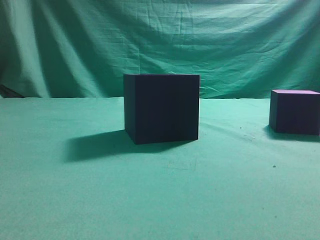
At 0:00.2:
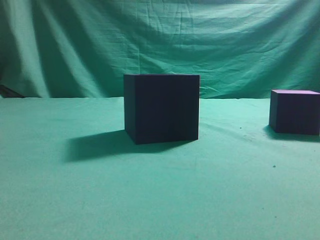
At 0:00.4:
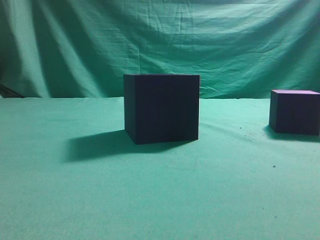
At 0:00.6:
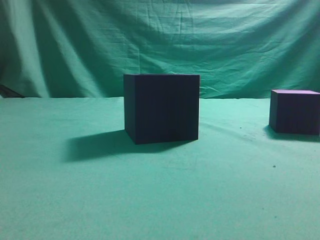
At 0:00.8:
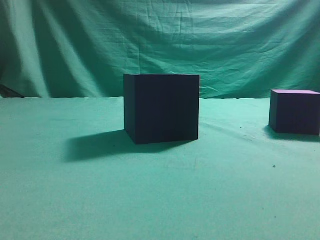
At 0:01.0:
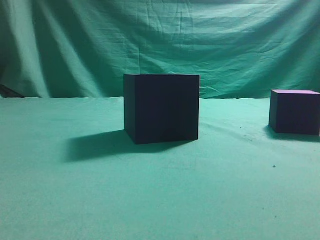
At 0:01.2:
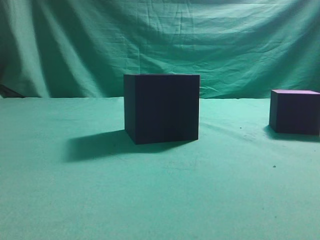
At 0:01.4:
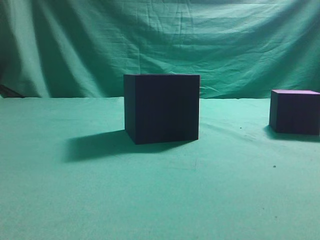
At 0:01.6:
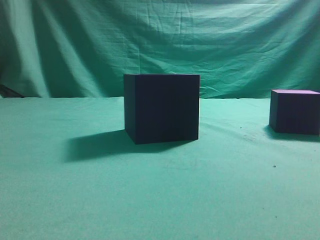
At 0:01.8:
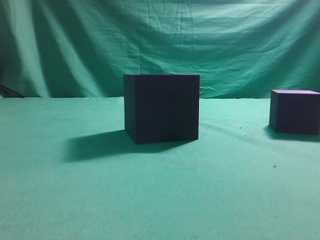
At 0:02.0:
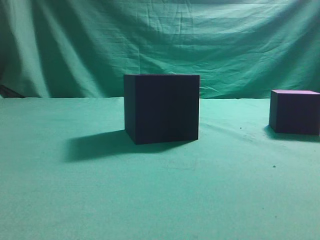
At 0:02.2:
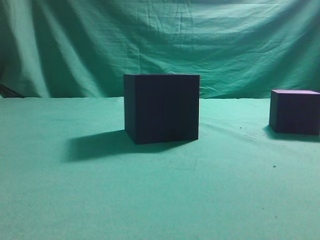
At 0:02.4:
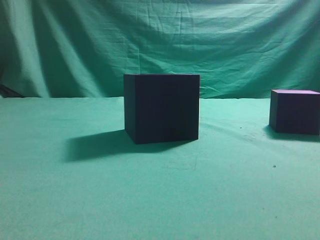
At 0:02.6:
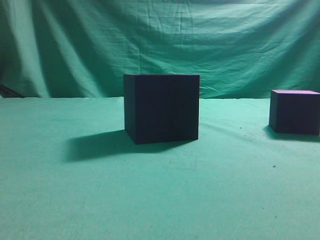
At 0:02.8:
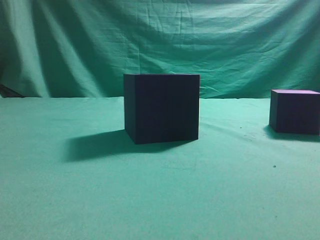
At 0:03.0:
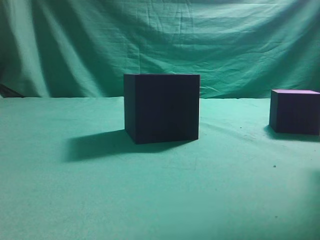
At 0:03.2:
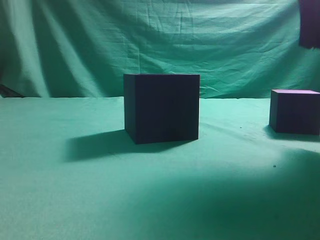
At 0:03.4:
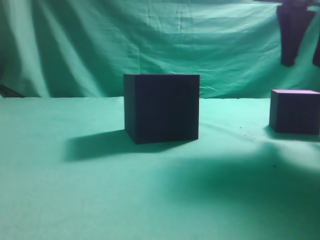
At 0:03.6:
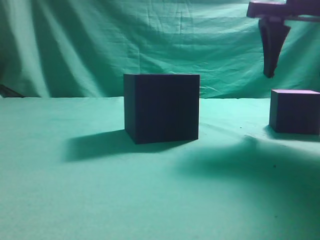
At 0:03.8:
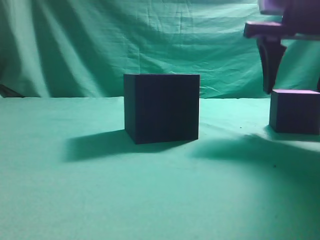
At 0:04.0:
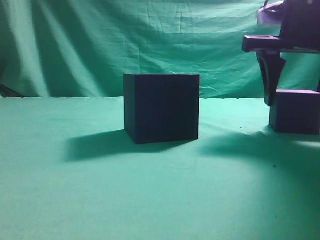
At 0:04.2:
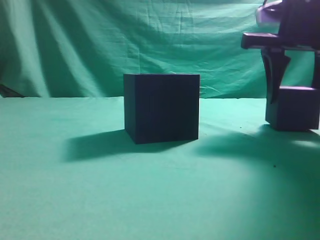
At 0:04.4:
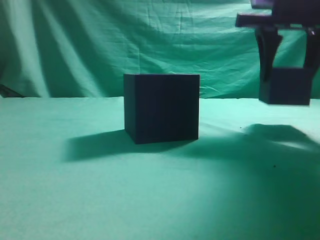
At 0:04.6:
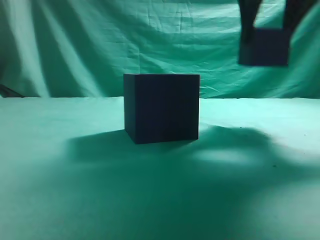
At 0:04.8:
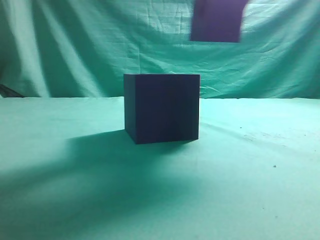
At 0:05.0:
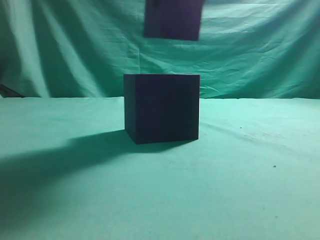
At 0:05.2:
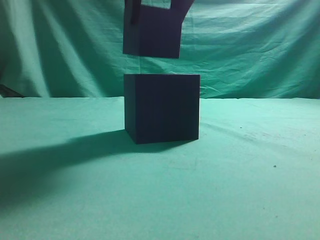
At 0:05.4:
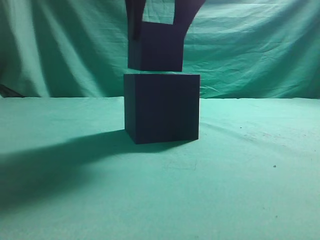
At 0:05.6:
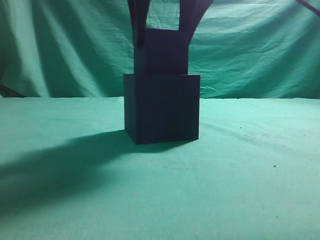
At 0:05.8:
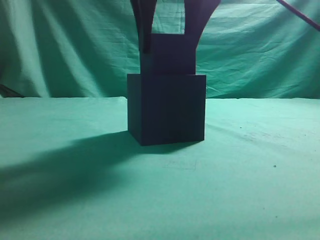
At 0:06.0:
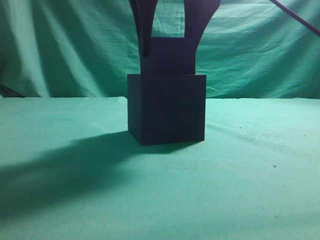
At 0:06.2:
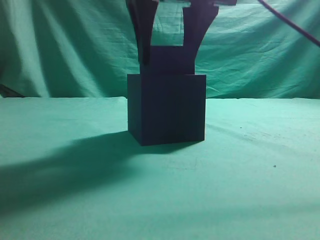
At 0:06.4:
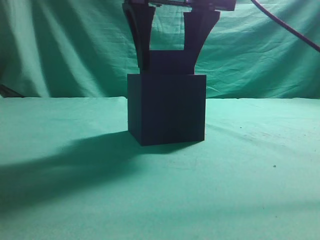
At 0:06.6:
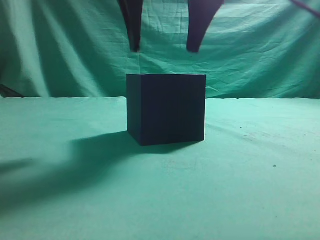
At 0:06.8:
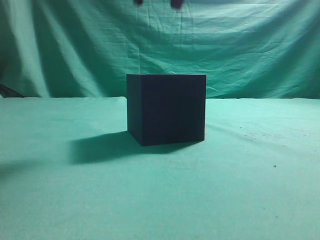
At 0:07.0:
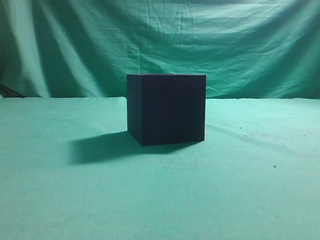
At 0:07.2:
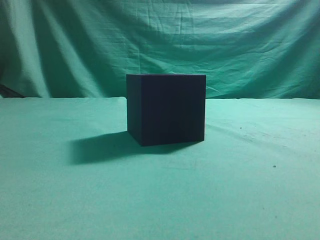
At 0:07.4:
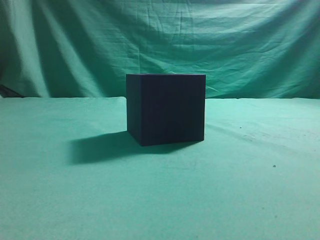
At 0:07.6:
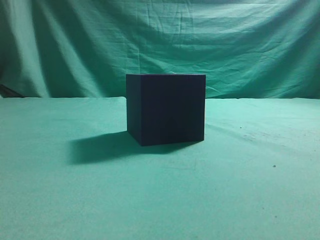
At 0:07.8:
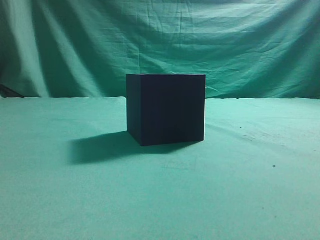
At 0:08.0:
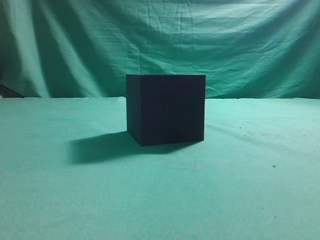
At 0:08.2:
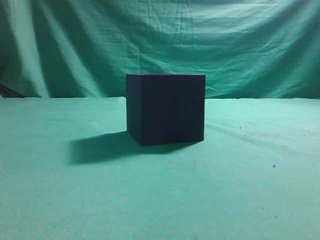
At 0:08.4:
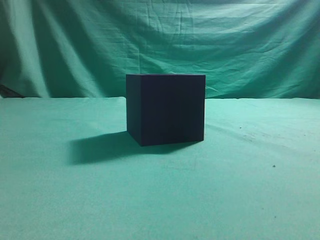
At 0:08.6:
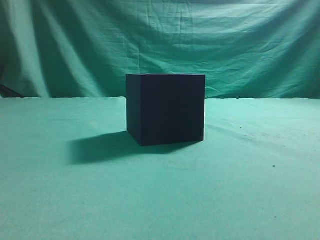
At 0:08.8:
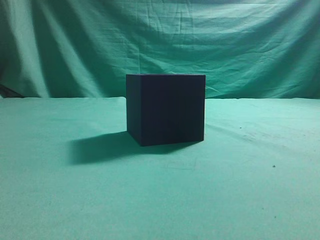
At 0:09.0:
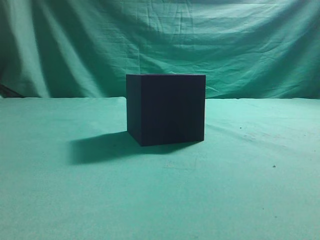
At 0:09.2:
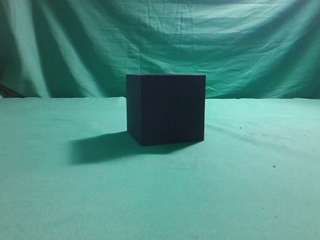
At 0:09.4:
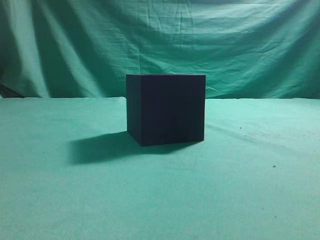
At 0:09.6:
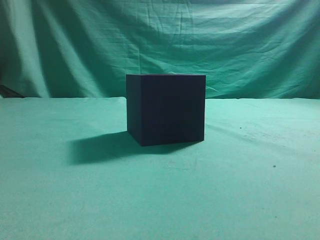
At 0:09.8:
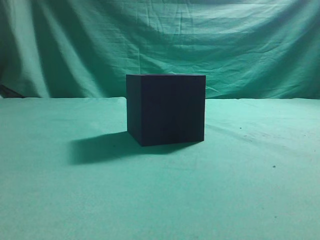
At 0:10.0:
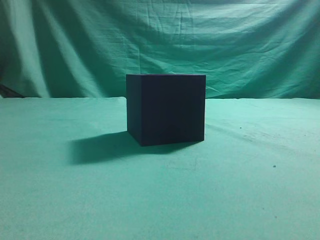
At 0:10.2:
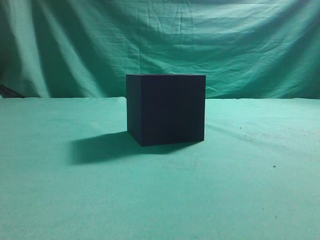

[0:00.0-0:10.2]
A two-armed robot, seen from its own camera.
Task of the whole recording: pick up the cube block and place it into the cube groove.
Step, 0:00.0 to 0:04.4: Grasp the cube.
Step, 0:04.6 to 0:06.6: Place cube into the cube-shaped recess.
0:01.4 to 0:03.0: The right gripper is displaced forward, upward and to the left by about 25 cm.
0:03.0 to 0:04.4: The right gripper shifts about 10 cm forward and downward, and opens.
0:04.4 to 0:05.8: The right gripper travels to the left by roughly 15 cm.
0:05.8 to 0:07.2: The right gripper moves upward, roughly 15 cm, and closes.
